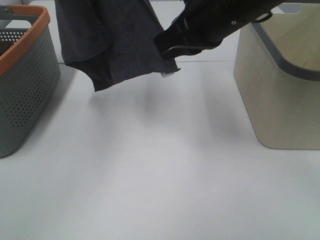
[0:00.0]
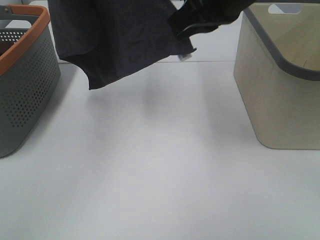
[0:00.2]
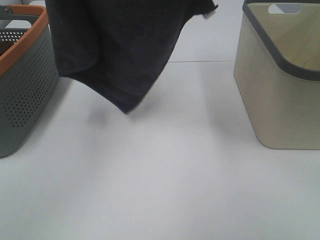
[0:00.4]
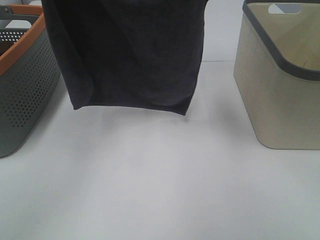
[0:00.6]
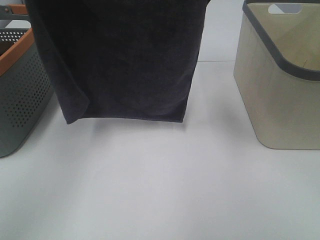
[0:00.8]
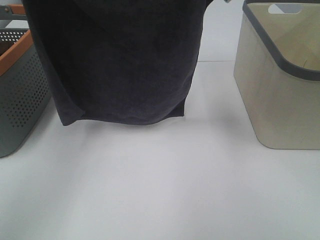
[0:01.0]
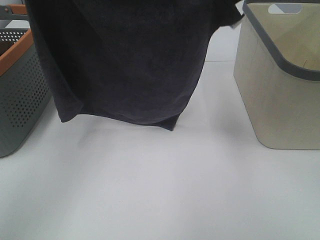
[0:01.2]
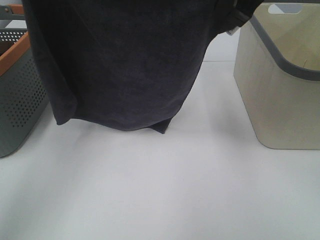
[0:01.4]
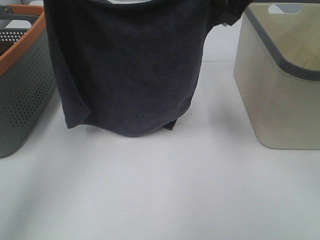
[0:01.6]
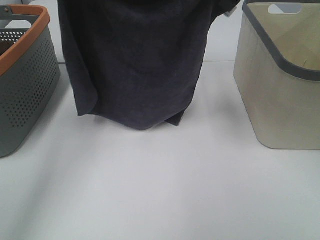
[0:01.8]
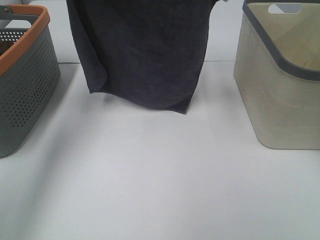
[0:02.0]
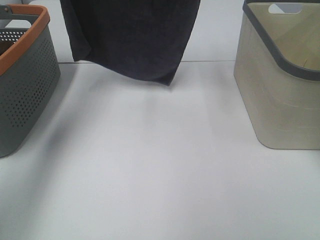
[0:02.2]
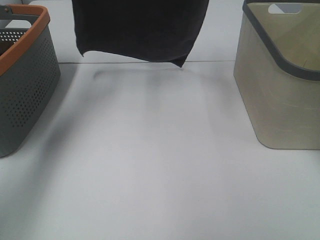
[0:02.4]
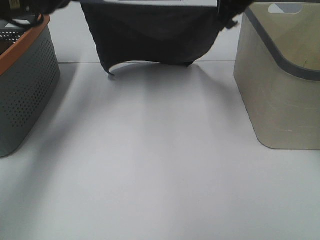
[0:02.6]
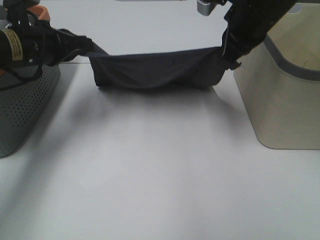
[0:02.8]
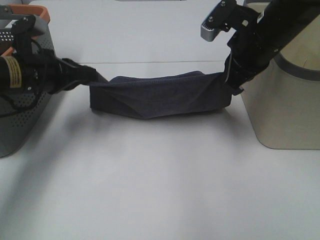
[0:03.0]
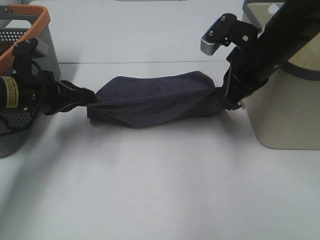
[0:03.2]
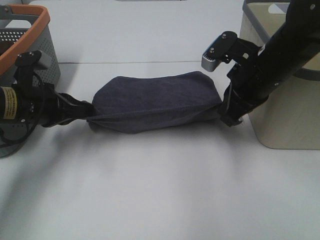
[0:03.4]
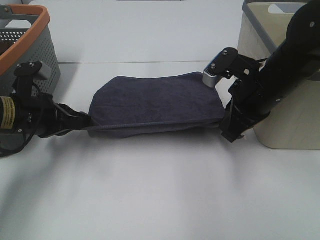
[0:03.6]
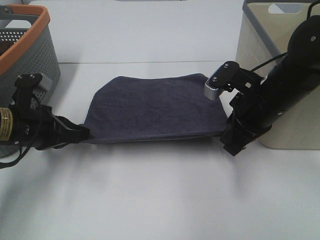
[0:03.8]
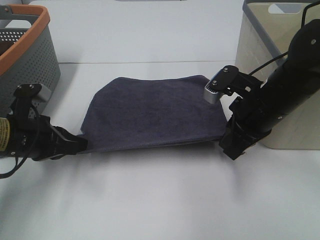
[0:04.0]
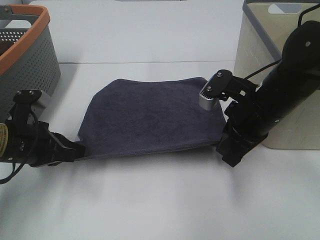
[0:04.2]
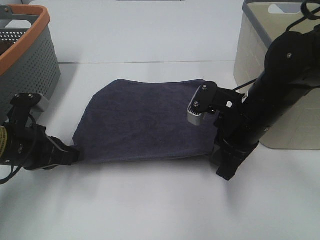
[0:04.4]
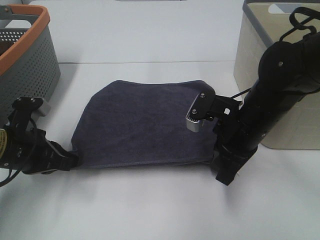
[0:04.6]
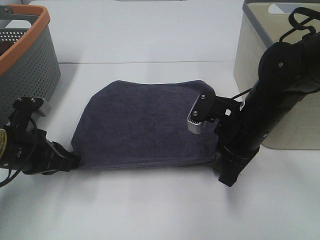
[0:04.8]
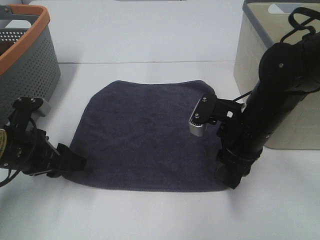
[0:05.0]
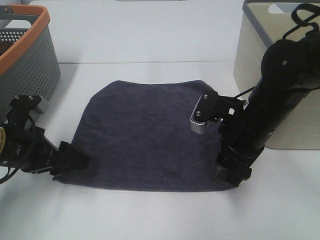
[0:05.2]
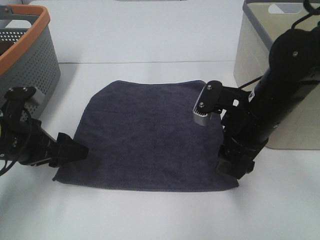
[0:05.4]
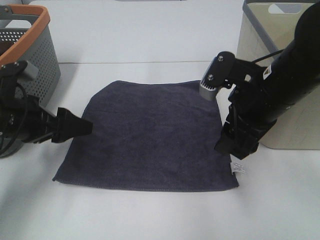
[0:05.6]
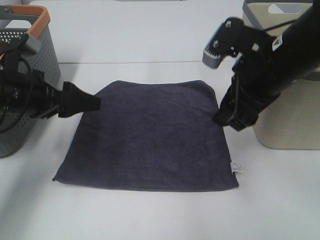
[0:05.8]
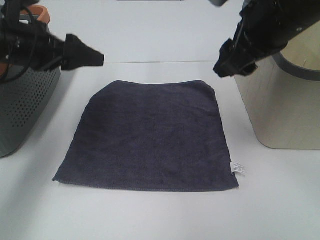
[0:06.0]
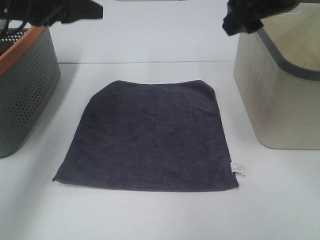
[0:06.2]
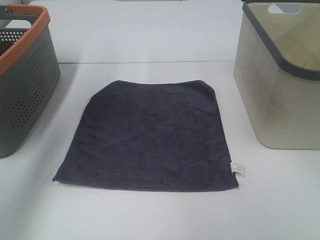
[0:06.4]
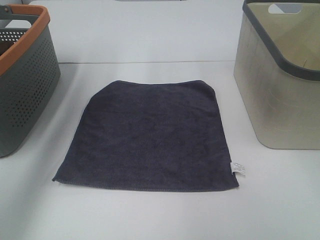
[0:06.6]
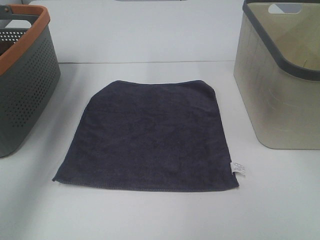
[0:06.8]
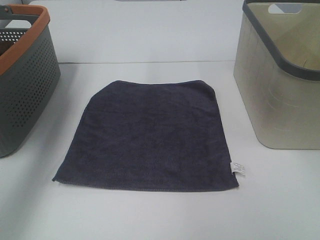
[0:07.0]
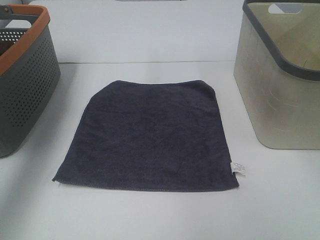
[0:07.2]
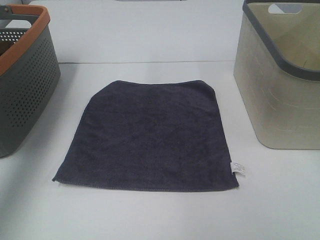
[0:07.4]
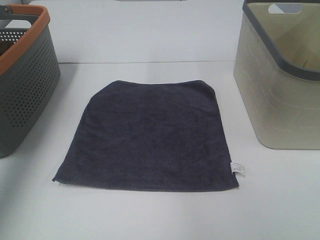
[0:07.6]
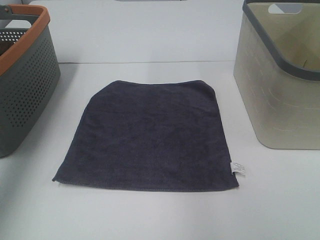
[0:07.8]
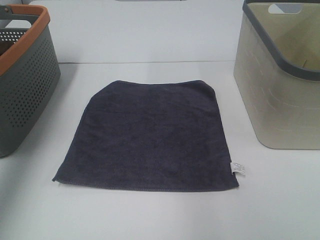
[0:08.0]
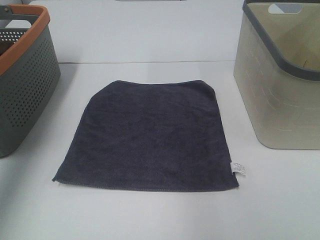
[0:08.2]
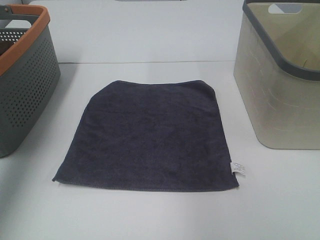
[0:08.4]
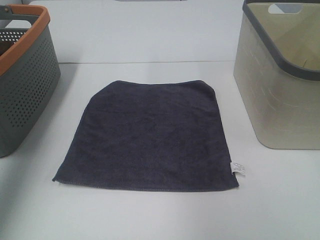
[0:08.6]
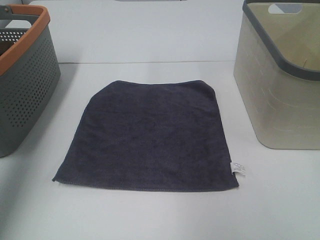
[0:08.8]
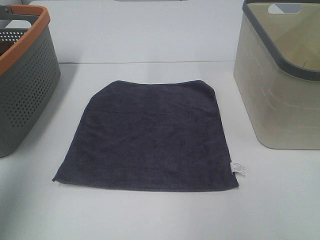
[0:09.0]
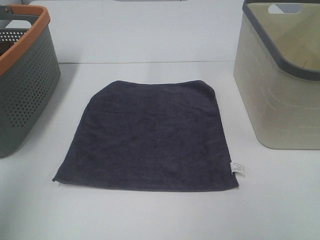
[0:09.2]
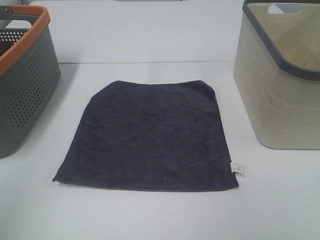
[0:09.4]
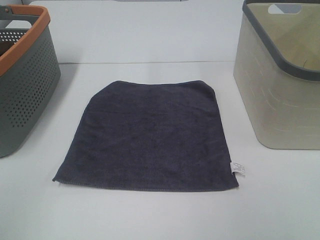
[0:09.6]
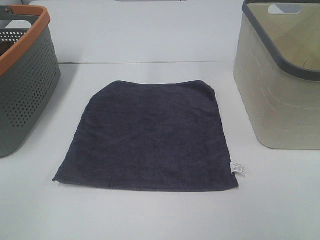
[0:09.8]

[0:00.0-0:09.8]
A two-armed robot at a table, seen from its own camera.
Task of the whole recording: Remove the towel and place it.
0:00.0 to 0:01.4: The left gripper heads downward and backward, covering some 10 cm, while the right gripper moves upward, roughly 5 cm.
0:01.4 to 0:02.8: Both grippers travel together downward and forward, some 15 cm.
0:02.8 to 0:04.2: The left gripper heads backward and downward, covering approximately 15 cm, while the right gripper goes some 15 cm downward and backward.
0:04.2 to 0:05.6: The left gripper opens its fingers, while the right gripper opens up.
0:05.6 to 0:07.0: The left gripper heads upward and forward, covering about 25 cm; the right gripper goes some 20 cm upward.
0:07.0 to 0:08.4: The left gripper is displaced backward by roughly 10 cm.
0:08.4 to 0:09.8: The left gripper is displaced backward by approximately 30 cm.

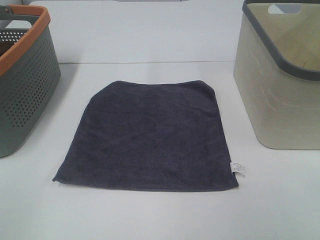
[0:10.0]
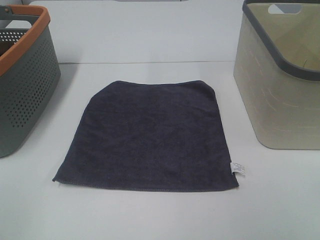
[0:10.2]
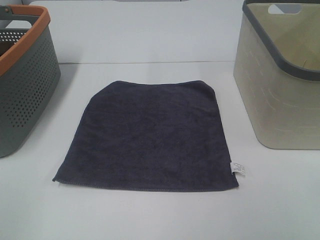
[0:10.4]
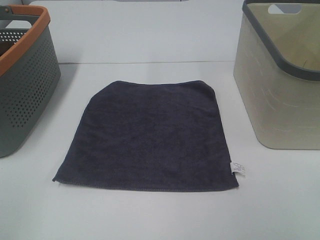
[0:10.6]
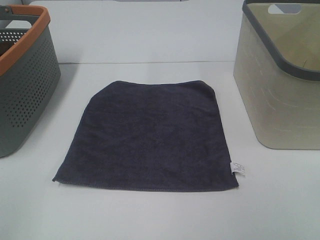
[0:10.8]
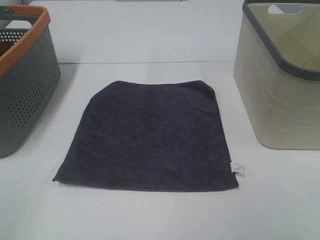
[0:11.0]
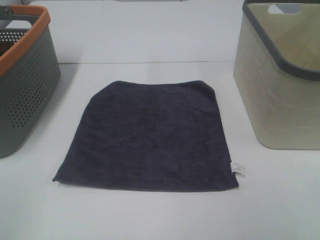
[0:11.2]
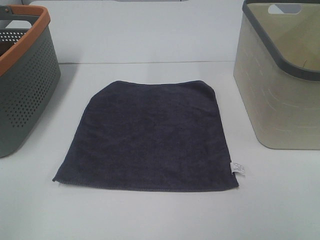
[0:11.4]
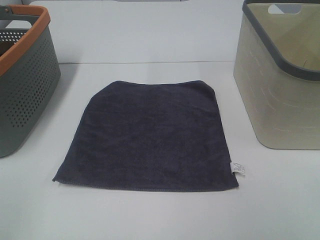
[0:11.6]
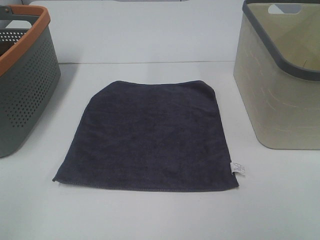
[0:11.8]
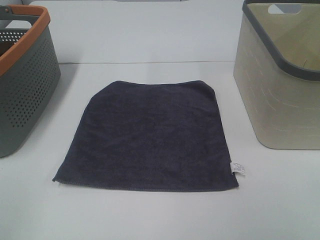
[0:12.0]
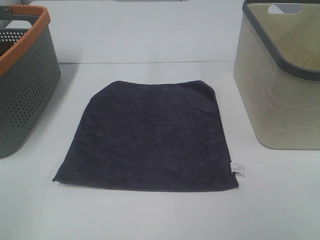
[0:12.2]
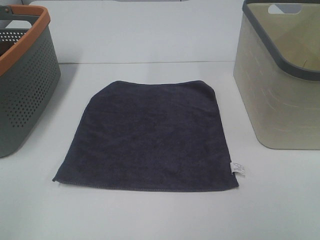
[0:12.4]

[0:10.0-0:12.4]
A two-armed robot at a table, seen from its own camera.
Task of the whole recording: Remove the towel and place it.
0:11.2 to 0:12.4: Neither gripper changes place.

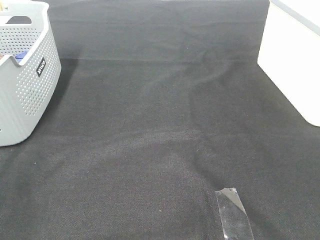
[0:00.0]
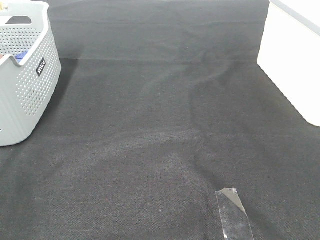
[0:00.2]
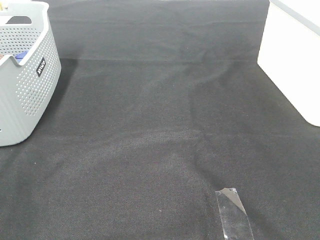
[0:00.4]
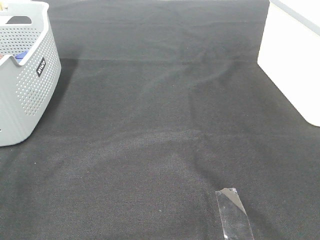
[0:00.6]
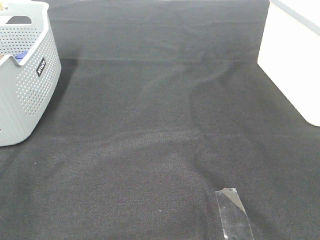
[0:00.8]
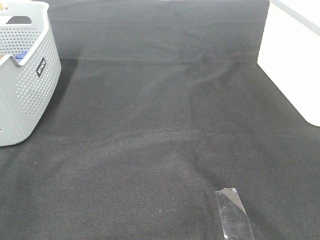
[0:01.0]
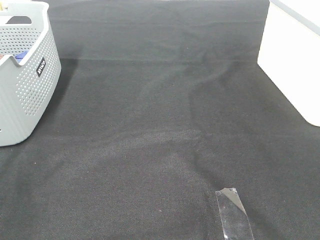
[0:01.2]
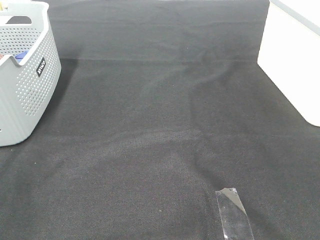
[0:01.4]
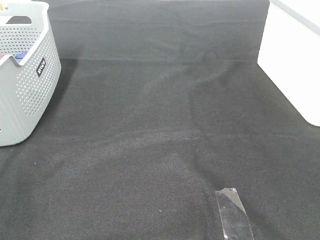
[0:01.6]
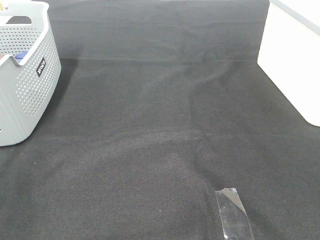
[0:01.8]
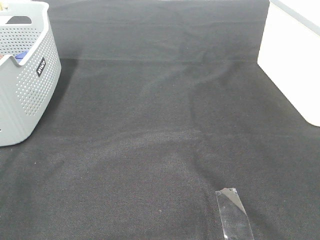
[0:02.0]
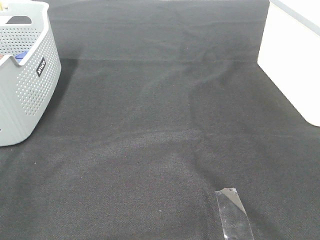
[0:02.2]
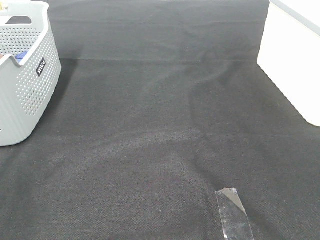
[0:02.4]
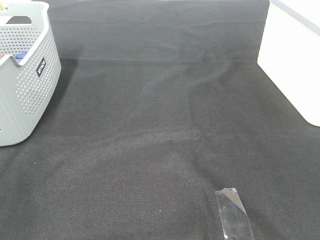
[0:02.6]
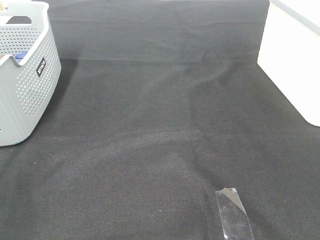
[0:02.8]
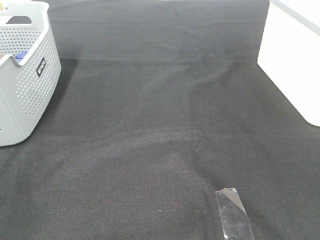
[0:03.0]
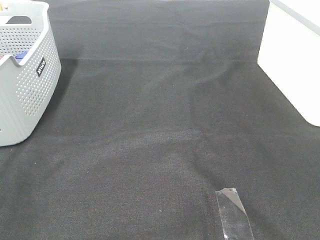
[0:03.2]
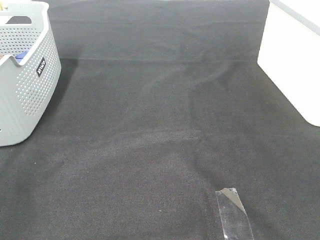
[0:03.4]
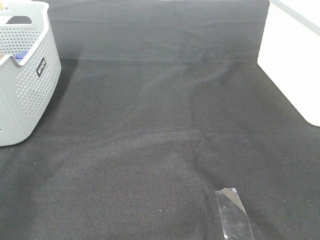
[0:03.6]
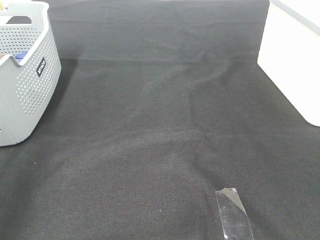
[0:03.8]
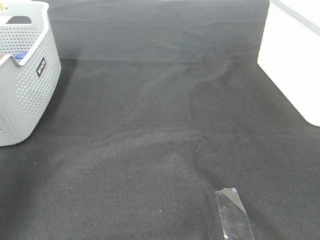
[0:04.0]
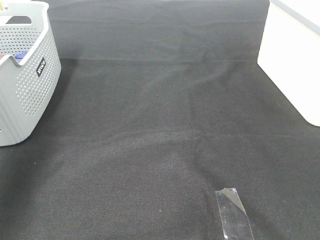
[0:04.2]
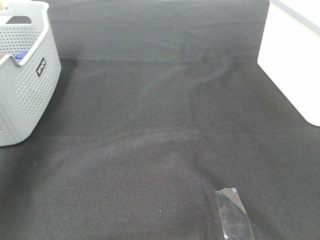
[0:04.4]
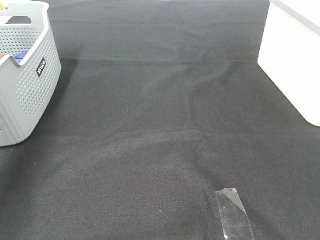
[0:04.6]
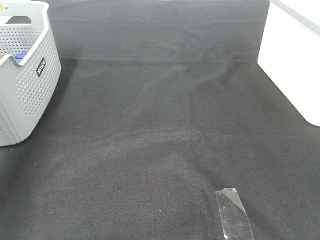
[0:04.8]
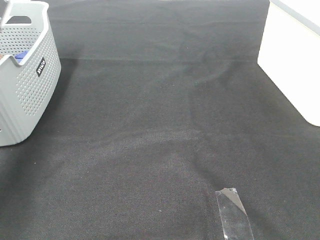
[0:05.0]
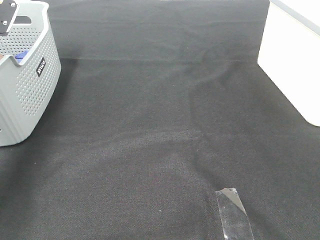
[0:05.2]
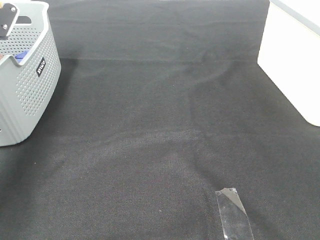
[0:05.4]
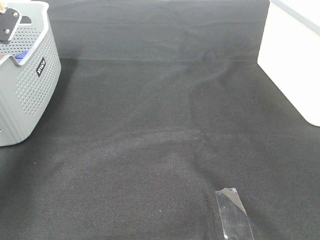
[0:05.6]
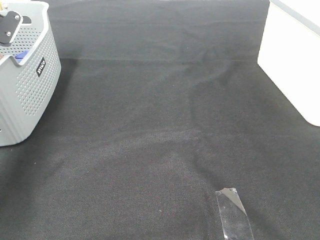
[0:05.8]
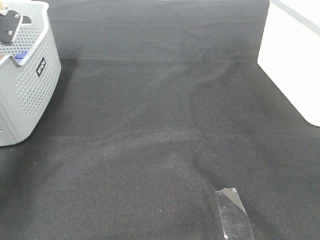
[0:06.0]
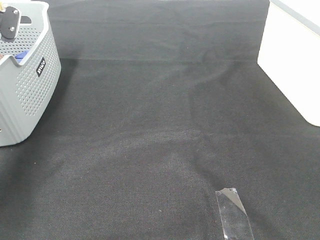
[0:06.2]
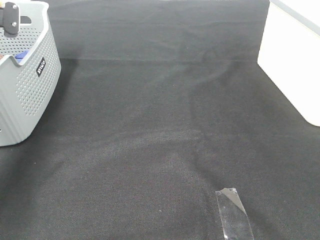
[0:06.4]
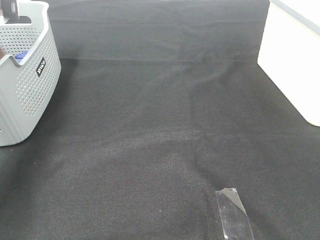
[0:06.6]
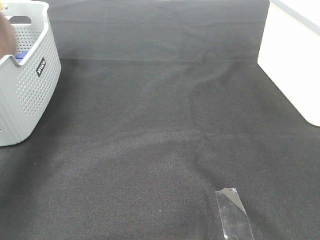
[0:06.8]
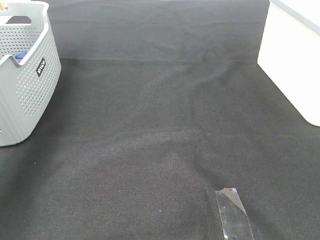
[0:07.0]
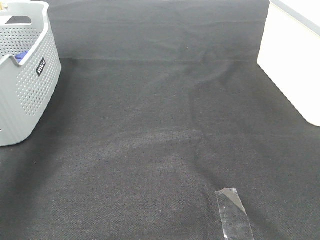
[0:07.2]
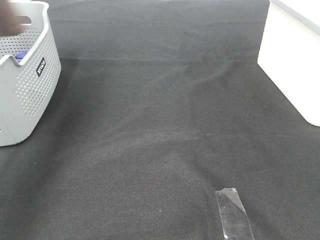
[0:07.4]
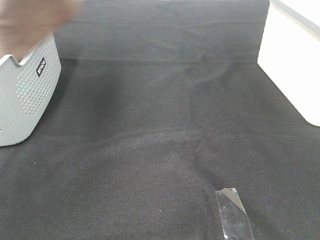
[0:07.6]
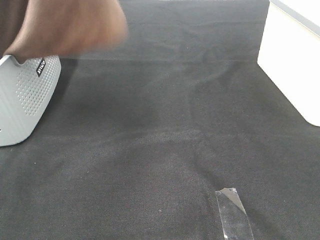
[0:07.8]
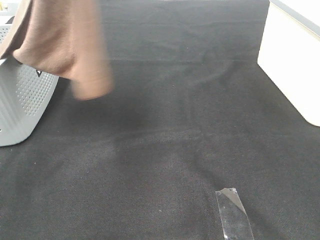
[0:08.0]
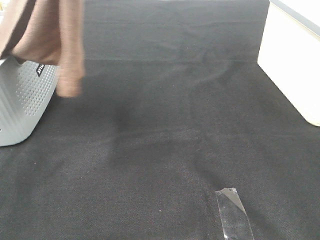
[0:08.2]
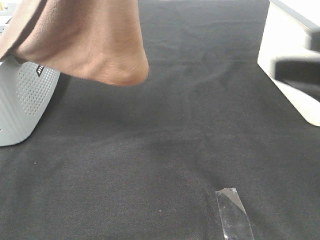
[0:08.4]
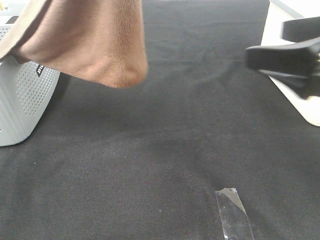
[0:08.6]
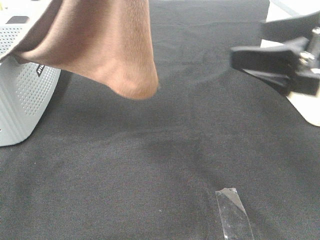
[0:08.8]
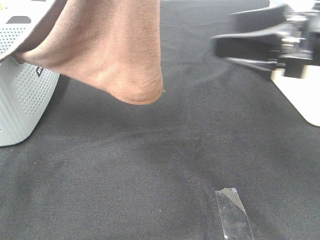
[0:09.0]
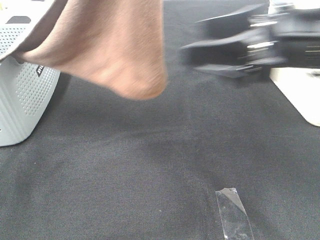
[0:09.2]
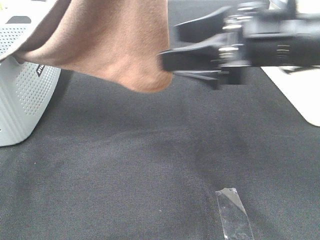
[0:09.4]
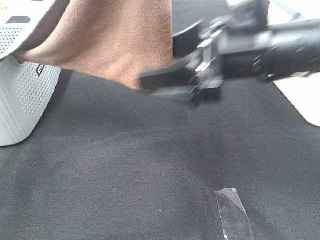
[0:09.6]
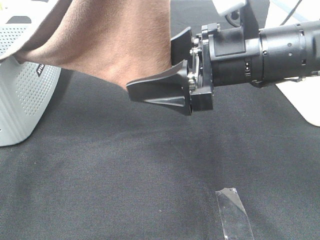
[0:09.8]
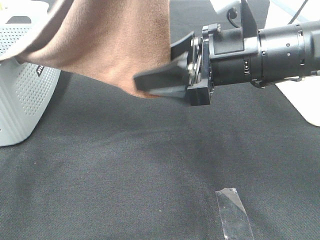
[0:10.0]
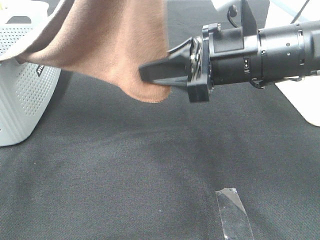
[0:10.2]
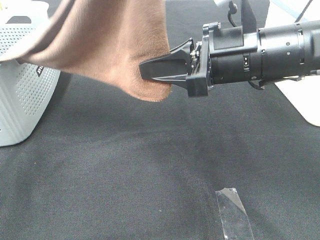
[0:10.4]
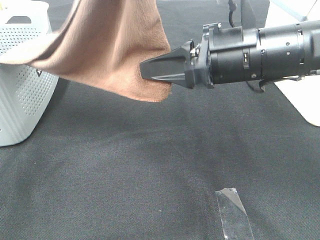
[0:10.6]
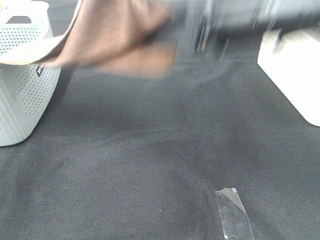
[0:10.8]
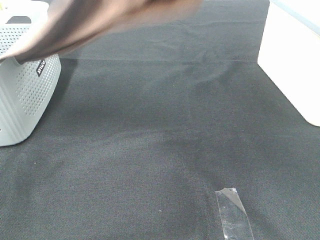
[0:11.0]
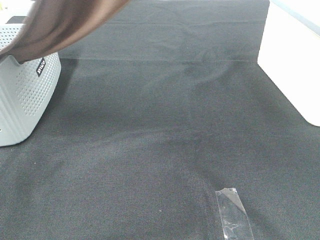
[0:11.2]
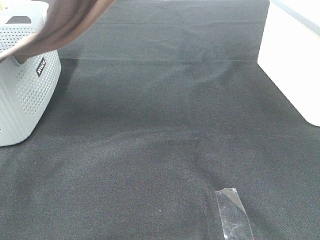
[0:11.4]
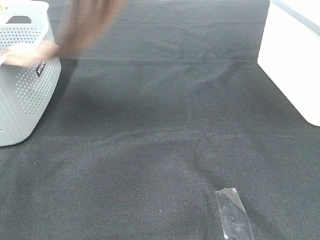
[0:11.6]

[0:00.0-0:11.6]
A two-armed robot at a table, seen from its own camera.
Task of the whole recording: Remove the towel and place it.
Step, 0:07.4 to 0:10.6: Right hand: grab a corner of the brown towel and straighten it.
0:00.0 to 0:02.8: The two grippers keep their place.
0:02.8 to 0:04.4: The left gripper moves forward, some 35 cm.
0:04.4 to 0:05.8: The left gripper travels downward and forward by roughly 15 cm, and closes up.
0:05.8 to 0:07.2: The left gripper moves upward, roughly 20 cm, and closes its fingers.
0:07.2 to 0:08.8: The right gripper shifts about 20 cm forward; the left gripper goes approximately 30 cm to the right and backward.
0:08.8 to 0:10.2: The right gripper heads to the left, covering approximately 10 cm, and closes its fingers.
0:10.2 to 0:11.6: The right gripper moves upward, approximately 25 cm; the left gripper heads forward and to the left, covering about 10 cm.
